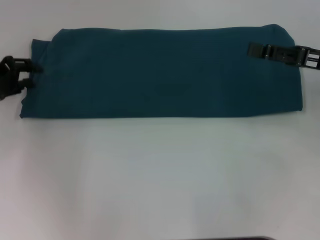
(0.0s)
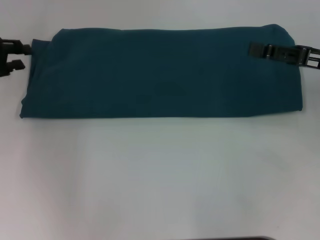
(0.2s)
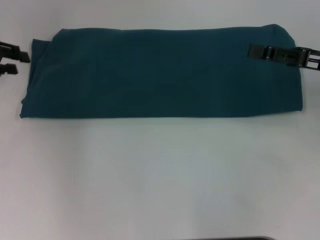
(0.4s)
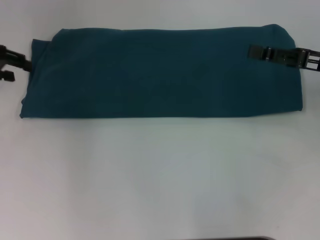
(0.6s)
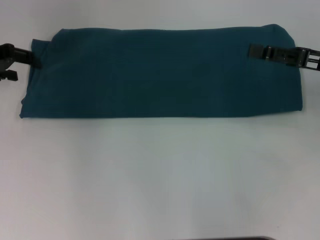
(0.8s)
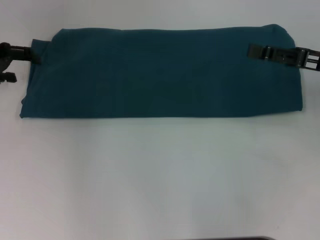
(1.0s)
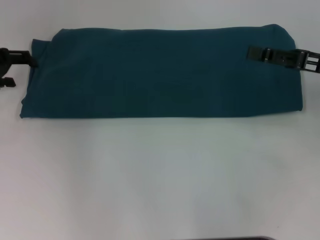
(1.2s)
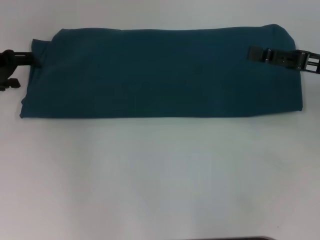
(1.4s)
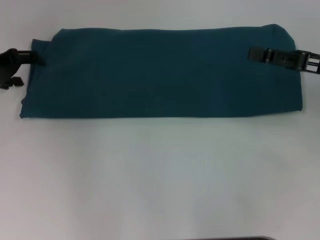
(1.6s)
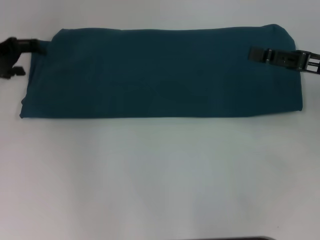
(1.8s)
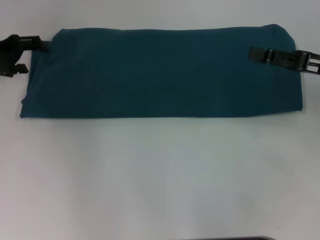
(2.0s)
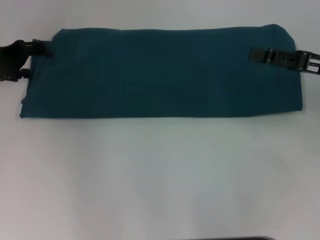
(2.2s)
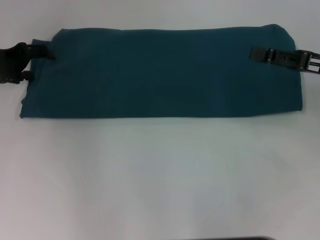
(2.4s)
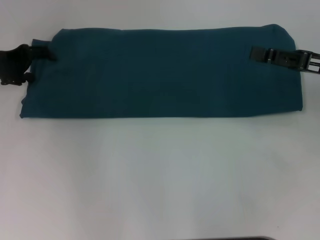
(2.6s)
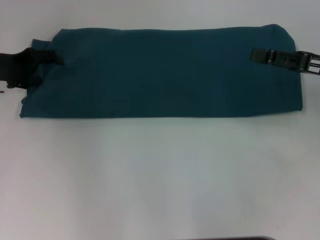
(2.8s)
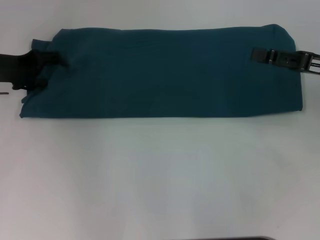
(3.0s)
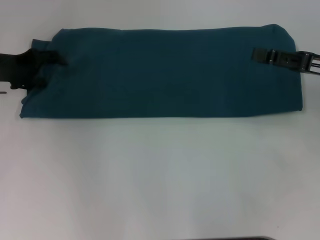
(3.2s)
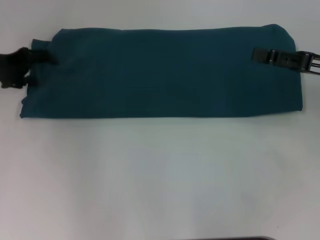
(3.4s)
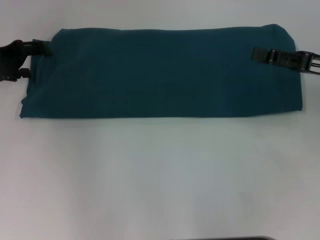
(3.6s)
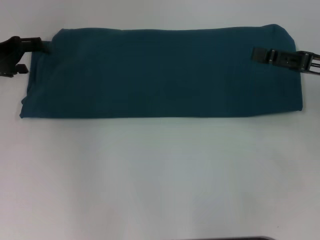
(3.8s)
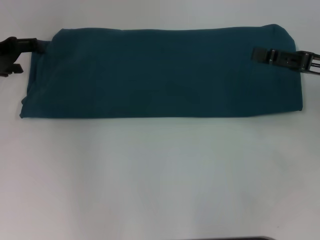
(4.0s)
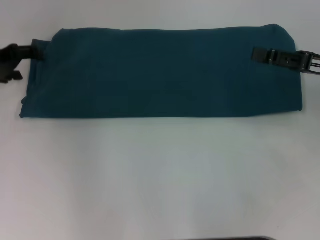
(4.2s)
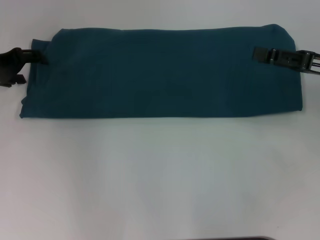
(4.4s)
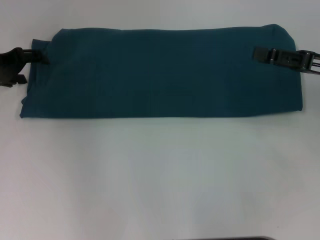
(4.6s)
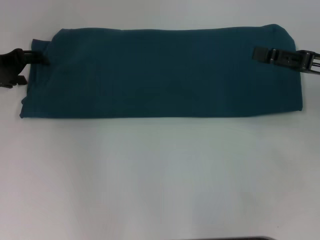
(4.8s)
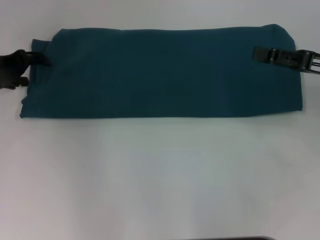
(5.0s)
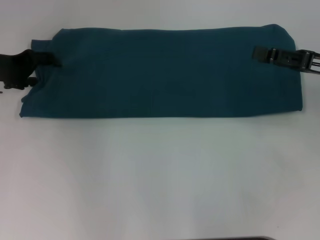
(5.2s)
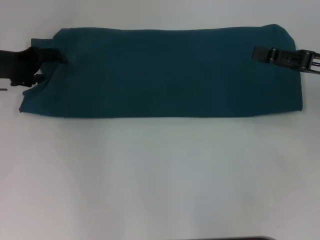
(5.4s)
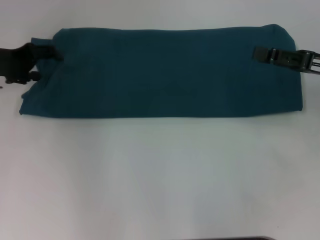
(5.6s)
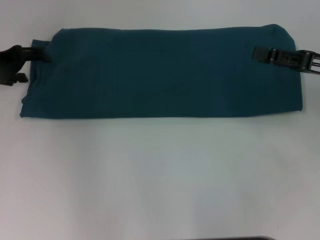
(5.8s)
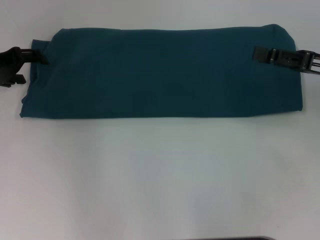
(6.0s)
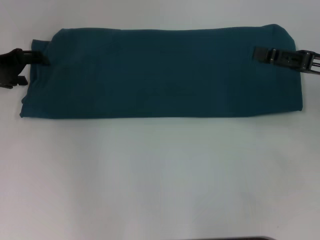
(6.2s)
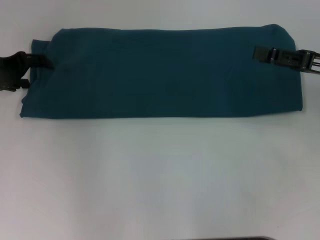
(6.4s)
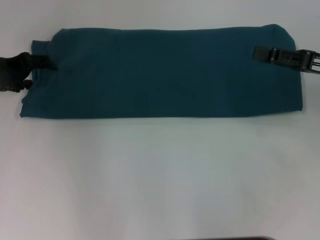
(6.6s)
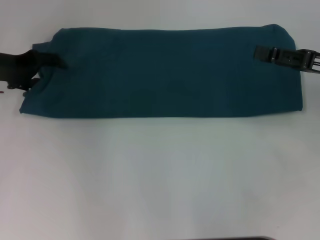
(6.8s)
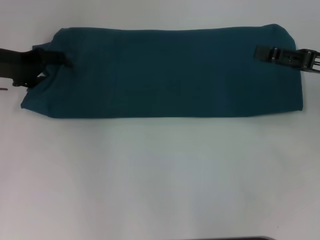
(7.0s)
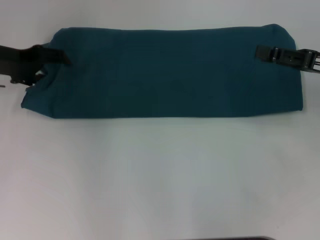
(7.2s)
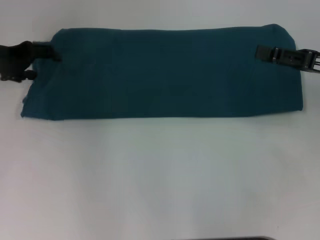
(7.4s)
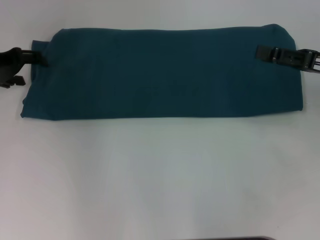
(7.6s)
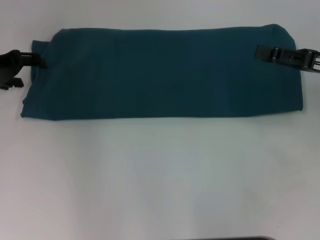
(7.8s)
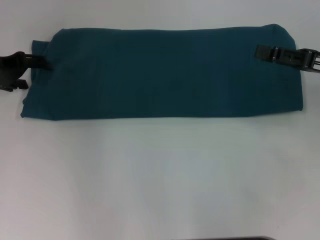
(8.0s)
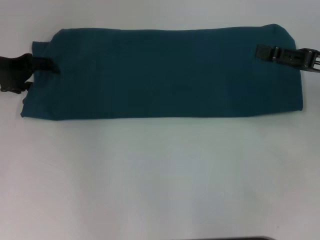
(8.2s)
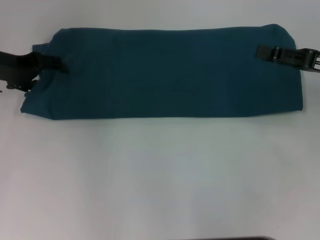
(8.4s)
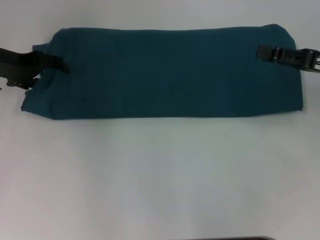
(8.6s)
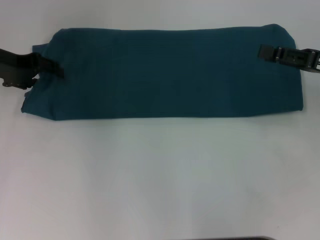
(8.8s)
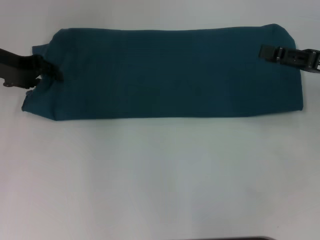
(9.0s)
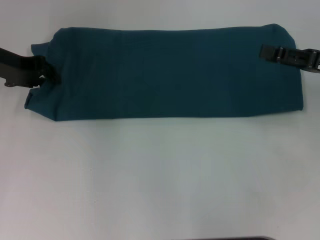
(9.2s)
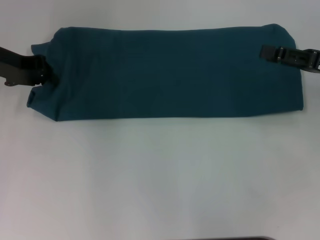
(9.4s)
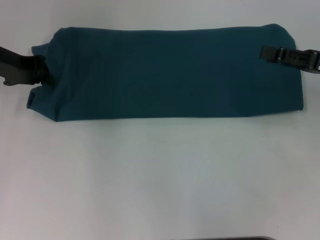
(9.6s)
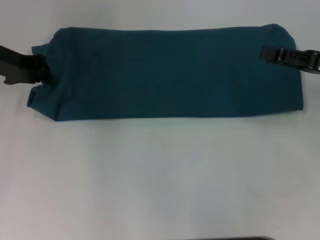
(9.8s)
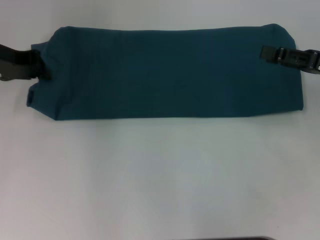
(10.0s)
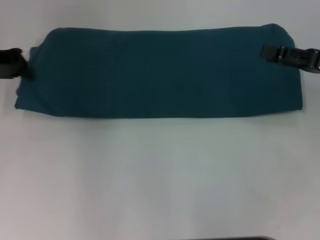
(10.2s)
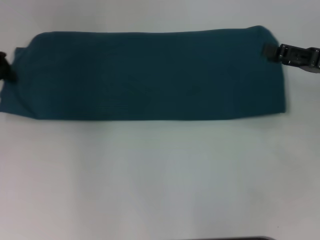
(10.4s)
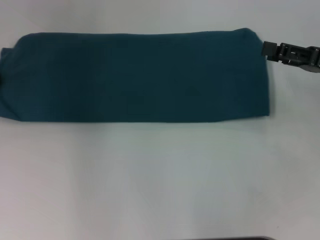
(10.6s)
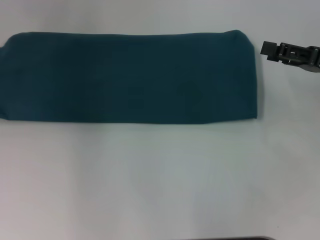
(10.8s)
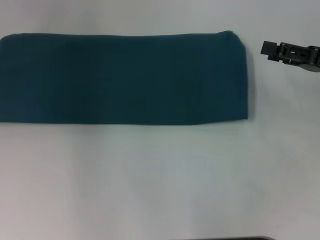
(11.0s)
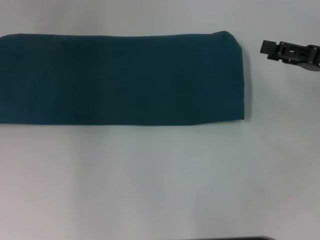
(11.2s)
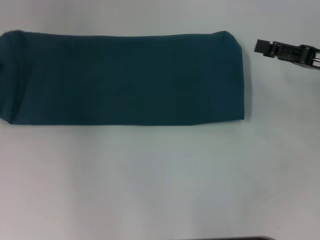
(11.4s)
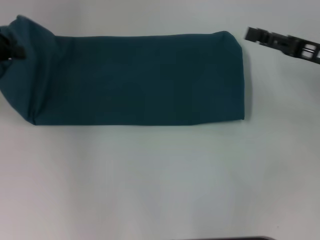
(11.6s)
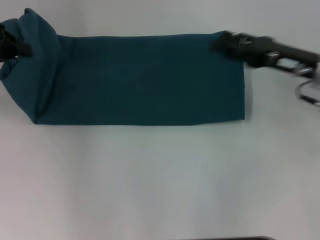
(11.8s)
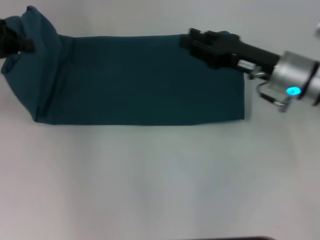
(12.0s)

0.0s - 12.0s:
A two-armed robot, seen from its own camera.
0.0s - 1.6s: The left gripper opens up.
1.6s - 4.4s: The grippers make only small movements.
7.6s - 9.0s: The grippers make only small movements.
9.0s - 10.4s: The left gripper closes up.
10.4s - 12.0s: The right gripper travels to the left by approximately 15 cm, and closes its fingers.

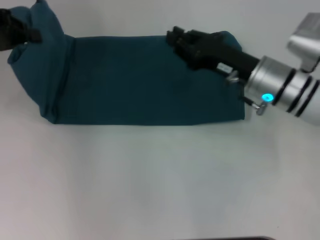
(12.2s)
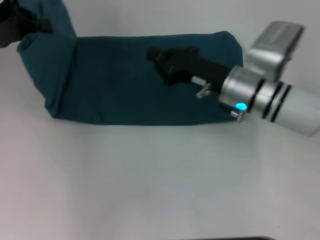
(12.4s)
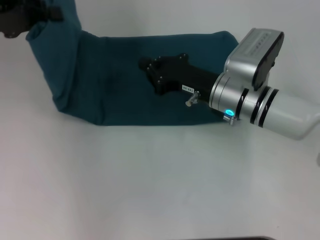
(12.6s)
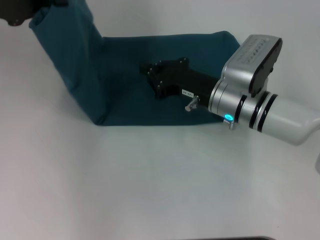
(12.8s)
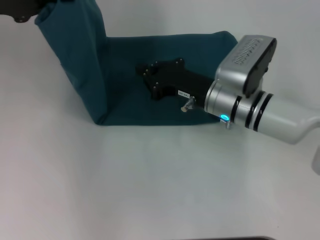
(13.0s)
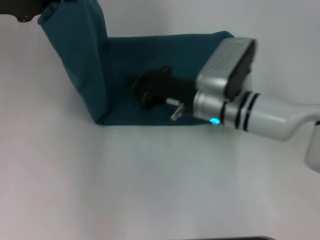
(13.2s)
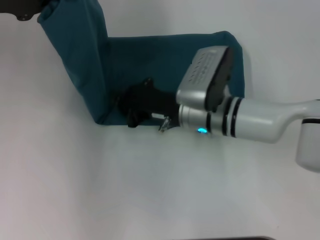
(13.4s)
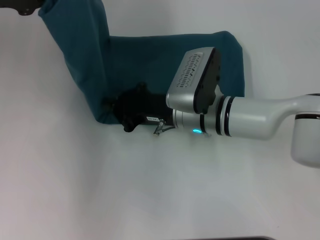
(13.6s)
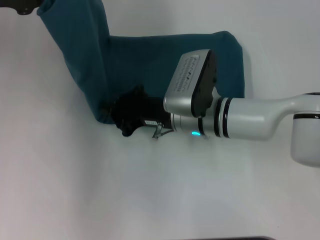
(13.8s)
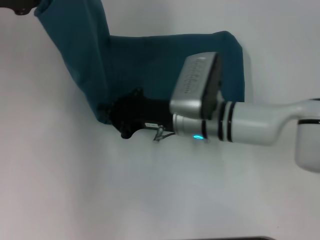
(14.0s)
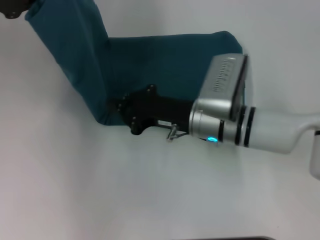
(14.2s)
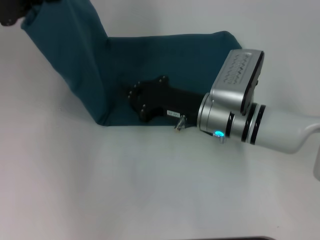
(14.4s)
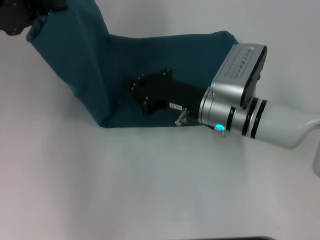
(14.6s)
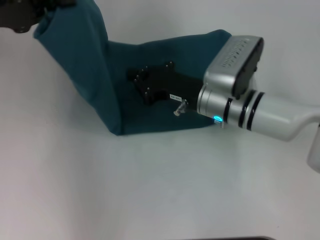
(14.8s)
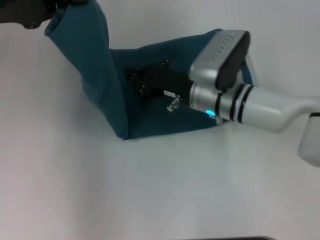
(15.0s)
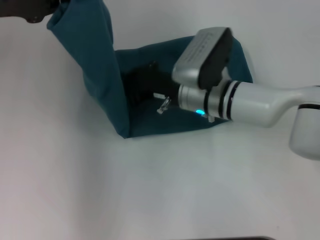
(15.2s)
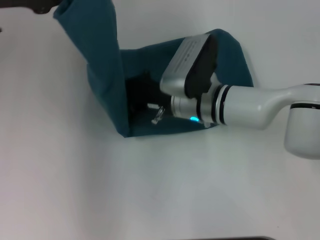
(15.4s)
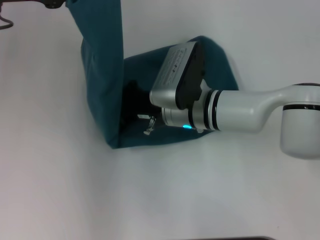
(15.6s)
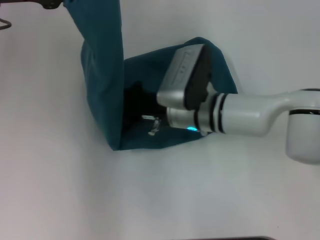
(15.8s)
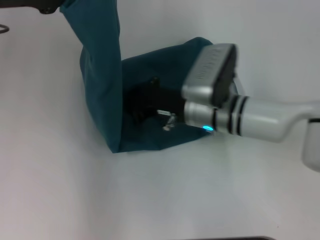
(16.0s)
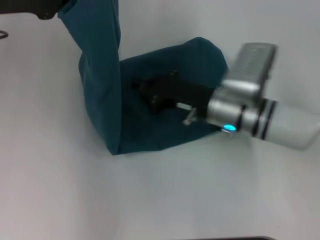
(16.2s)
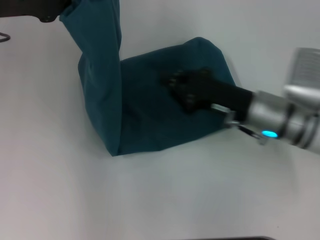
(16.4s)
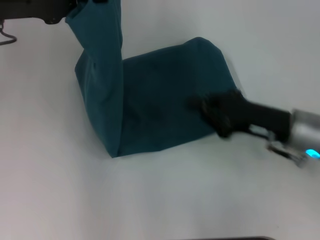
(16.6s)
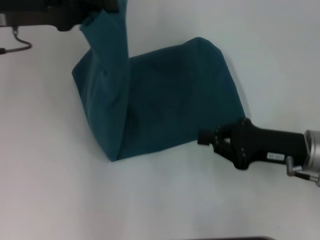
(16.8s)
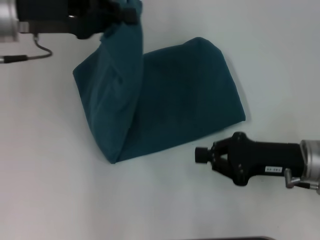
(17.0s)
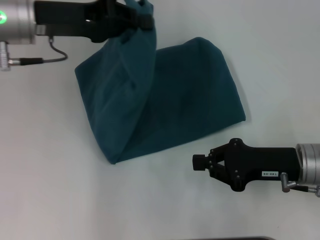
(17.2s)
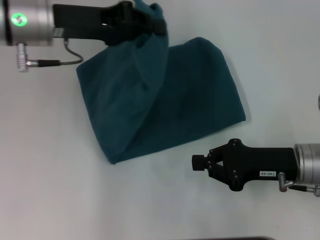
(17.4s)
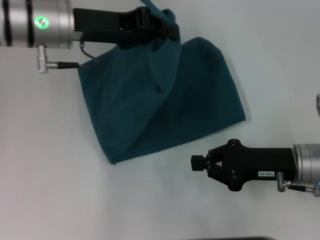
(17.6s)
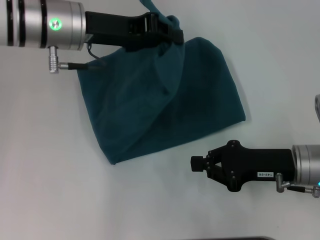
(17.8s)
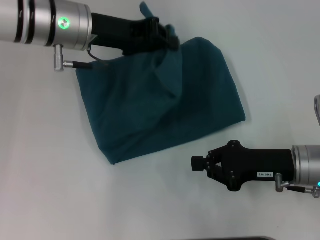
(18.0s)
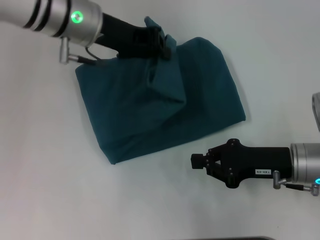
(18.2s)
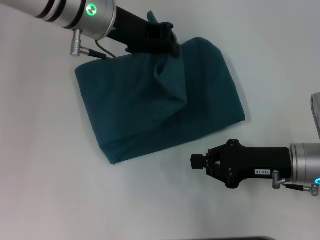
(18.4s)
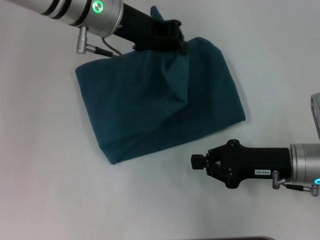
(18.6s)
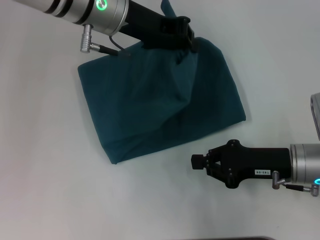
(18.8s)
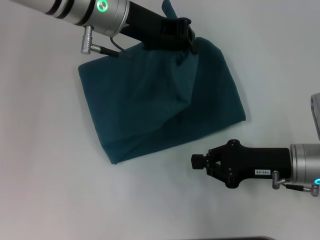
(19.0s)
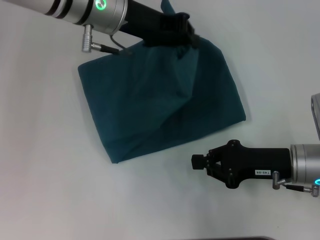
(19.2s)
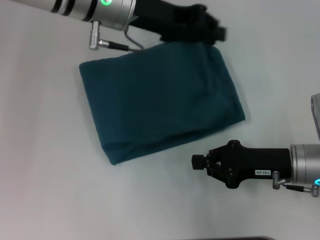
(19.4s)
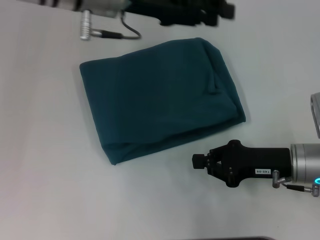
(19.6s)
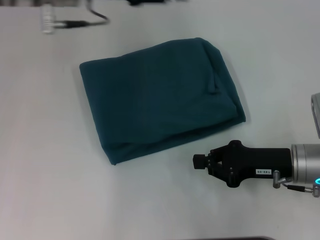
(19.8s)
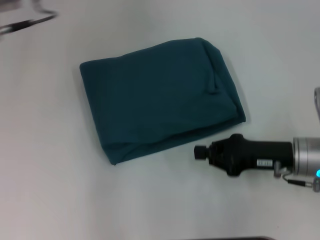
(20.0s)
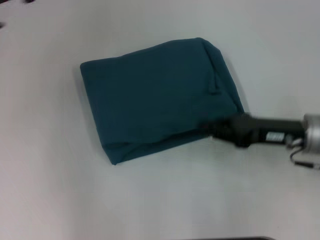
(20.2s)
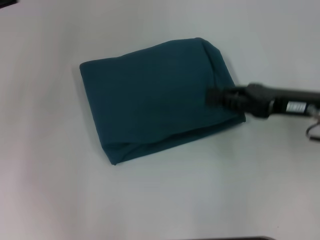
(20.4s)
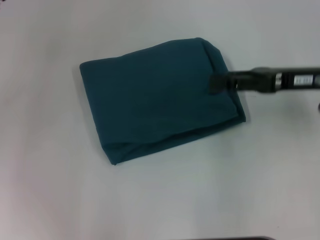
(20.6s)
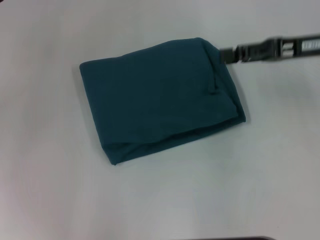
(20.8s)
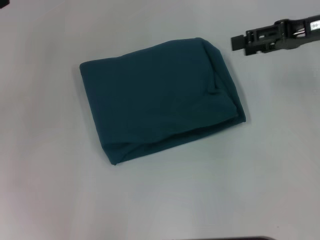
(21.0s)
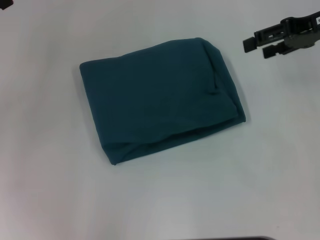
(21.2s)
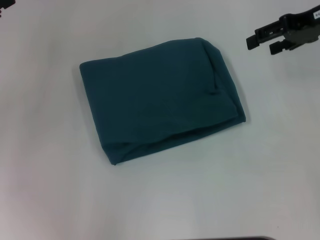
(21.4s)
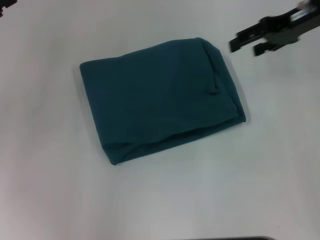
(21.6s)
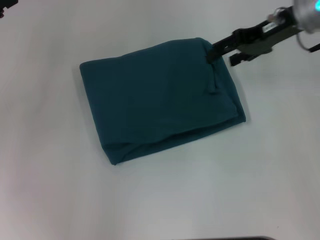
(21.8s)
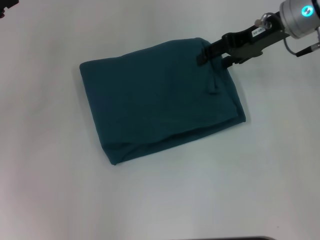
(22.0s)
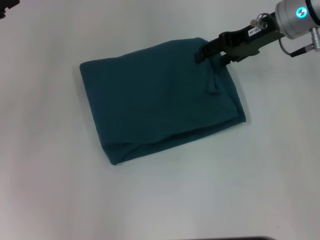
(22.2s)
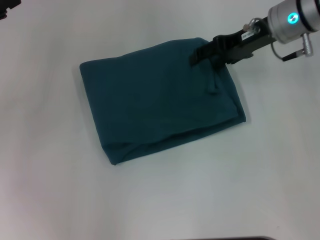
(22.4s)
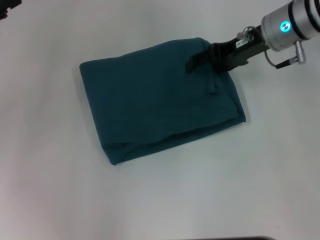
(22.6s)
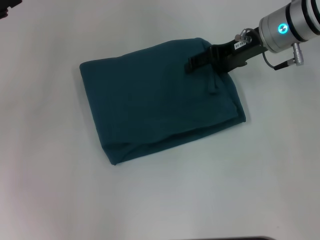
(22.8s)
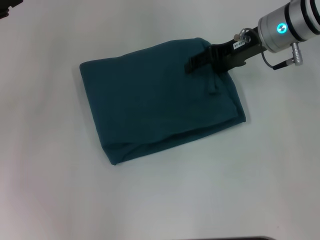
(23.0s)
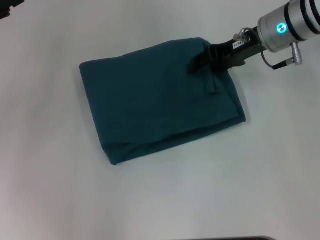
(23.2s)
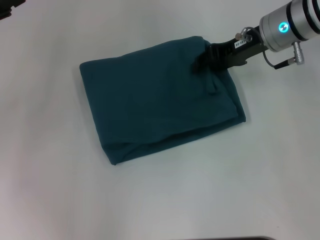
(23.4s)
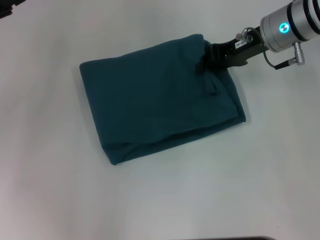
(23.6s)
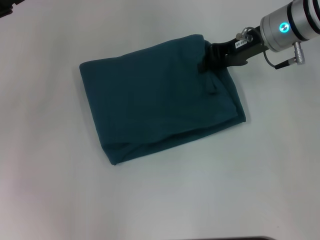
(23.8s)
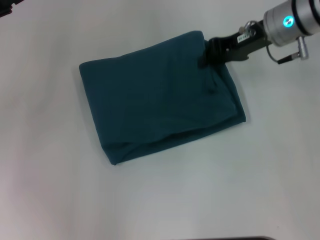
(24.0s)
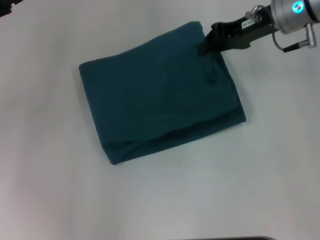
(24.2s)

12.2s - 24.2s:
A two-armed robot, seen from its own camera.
Step, 12.2s - 16.0s: Press the middle of the clothes with your right hand.
Step, 16.2s - 19.4s: Fold the clothes to the left.
12.2s - 13.8s: The right gripper heads to the left, covering some 10 cm, and closes up; the left gripper moves some 5 cm.
13.8s - 15.2s: The grippers stay close to where they were, moving slightly.
15.2s - 16.6s: The right gripper shifts about 15 cm to the right and backward.
16.6s - 18.2s: The left gripper moves to the right, some 15 cm.
18.2s - 19.8s: The left gripper opens.
19.8s - 21.2s: The right gripper heads upward and forward, covering some 25 cm, and opens up, while the left gripper shifts about 20 cm to the left and backward, and opens up.
21.2s - 22.6s: The right gripper is displaced to the left and downward by approximately 10 cm.
22.6s - 24.2s: The right gripper closes up.
